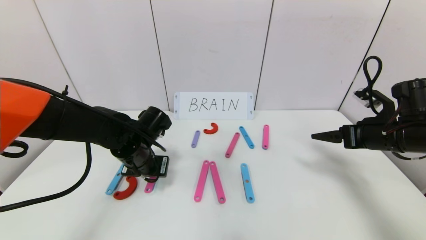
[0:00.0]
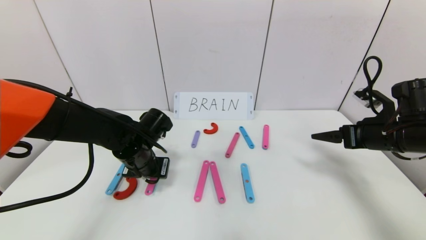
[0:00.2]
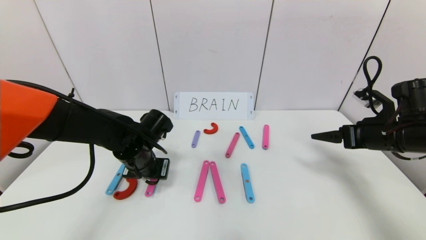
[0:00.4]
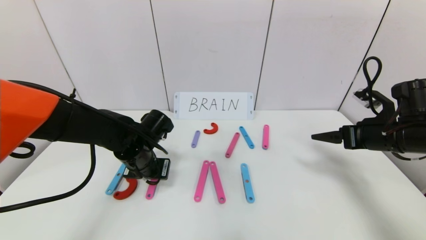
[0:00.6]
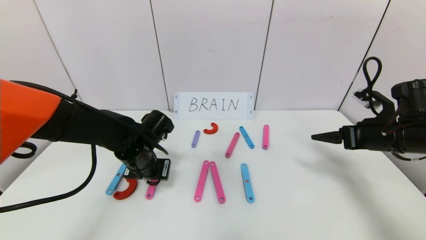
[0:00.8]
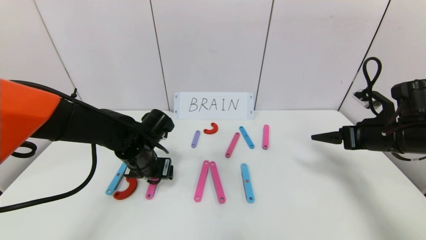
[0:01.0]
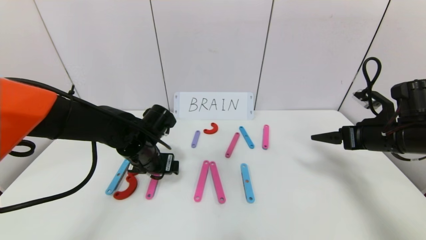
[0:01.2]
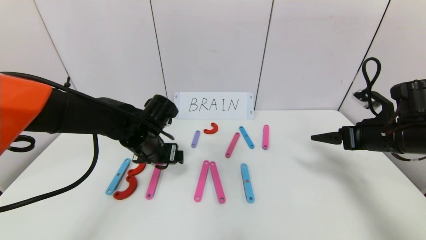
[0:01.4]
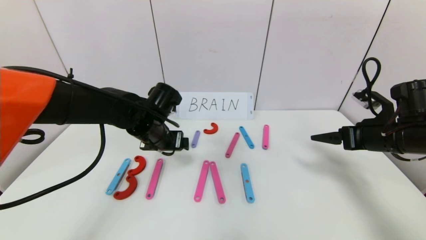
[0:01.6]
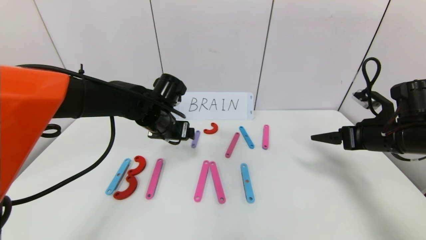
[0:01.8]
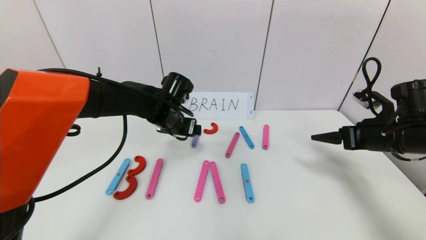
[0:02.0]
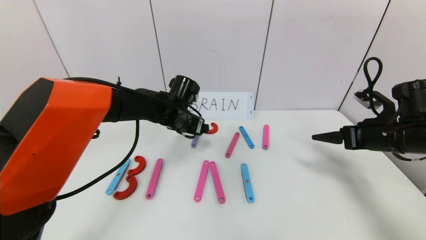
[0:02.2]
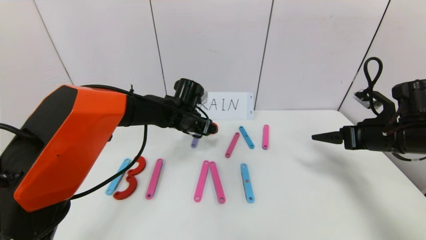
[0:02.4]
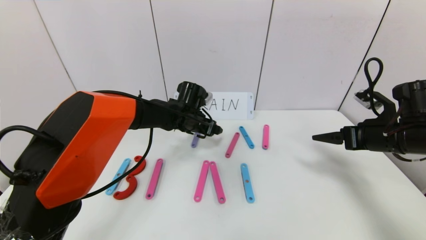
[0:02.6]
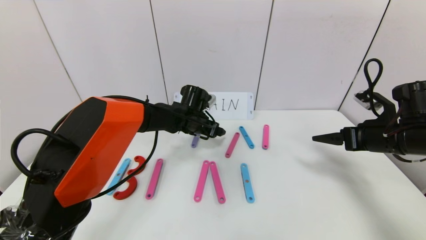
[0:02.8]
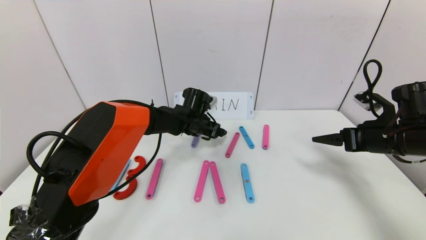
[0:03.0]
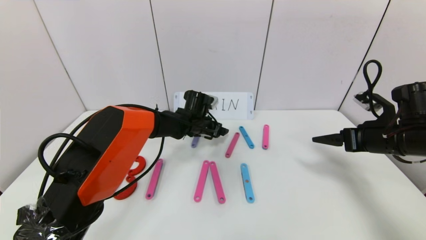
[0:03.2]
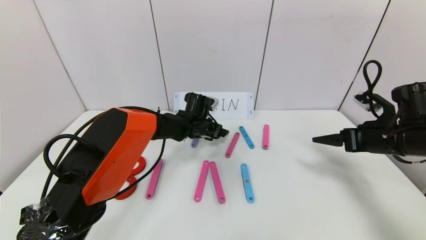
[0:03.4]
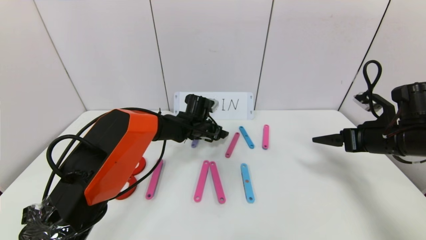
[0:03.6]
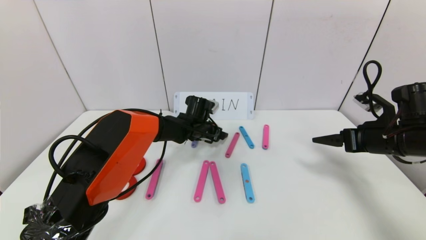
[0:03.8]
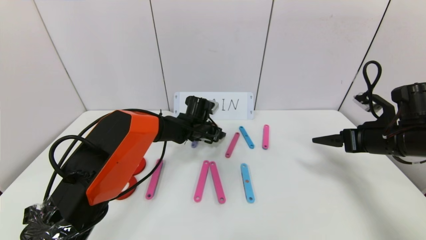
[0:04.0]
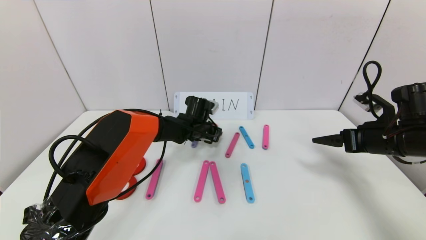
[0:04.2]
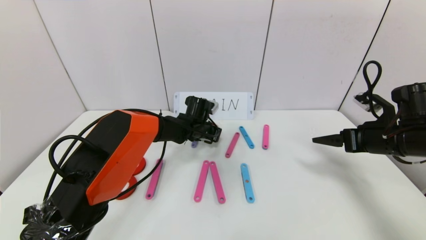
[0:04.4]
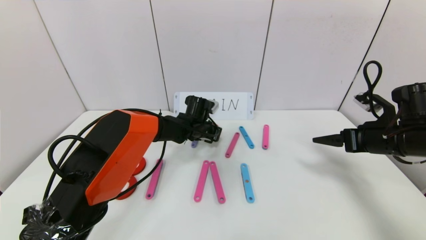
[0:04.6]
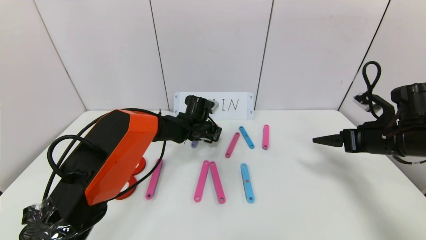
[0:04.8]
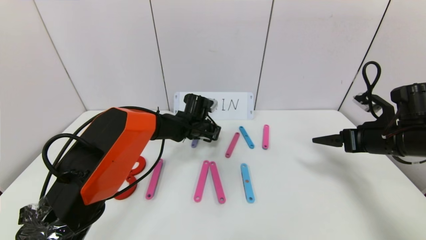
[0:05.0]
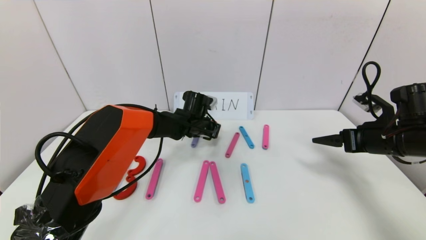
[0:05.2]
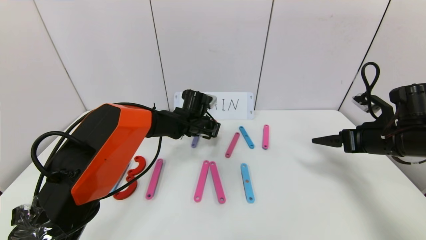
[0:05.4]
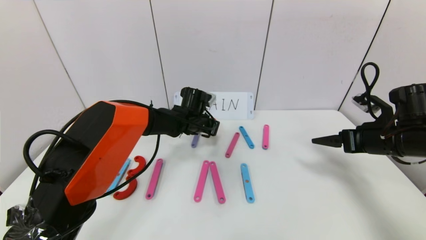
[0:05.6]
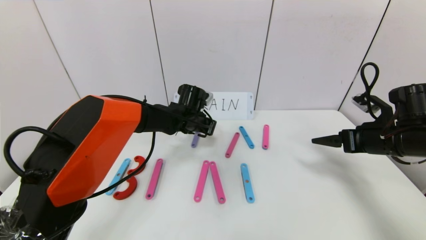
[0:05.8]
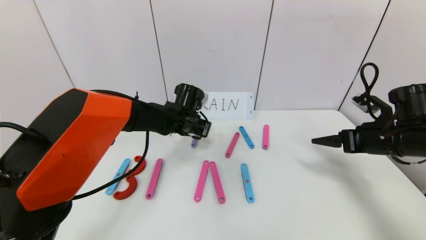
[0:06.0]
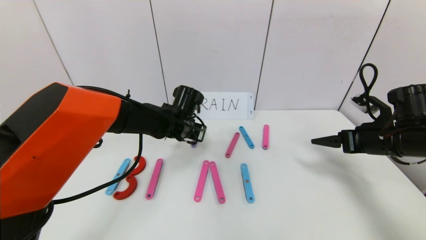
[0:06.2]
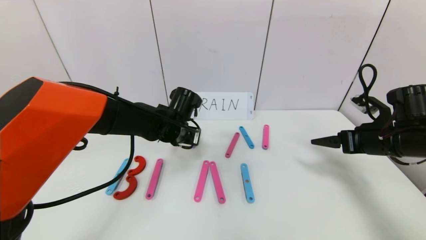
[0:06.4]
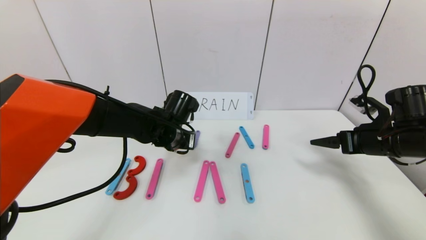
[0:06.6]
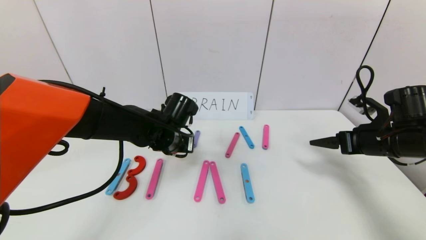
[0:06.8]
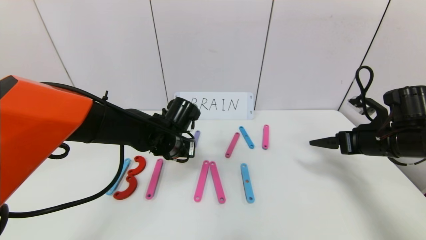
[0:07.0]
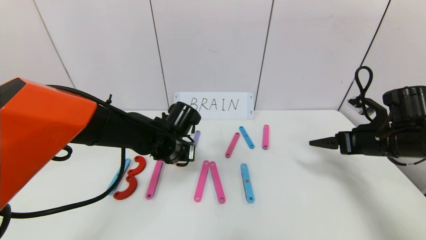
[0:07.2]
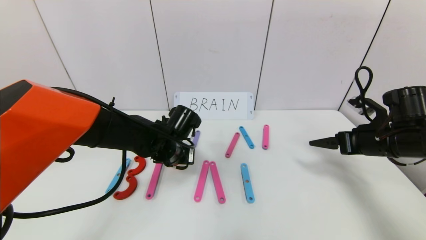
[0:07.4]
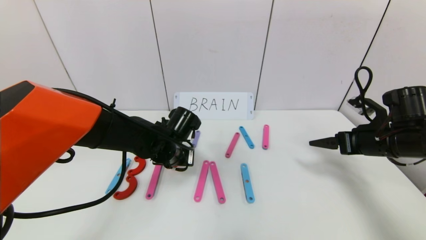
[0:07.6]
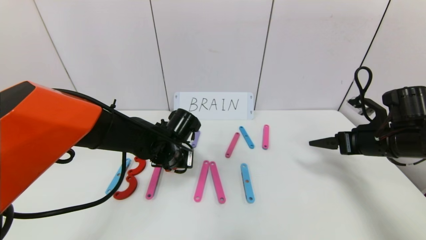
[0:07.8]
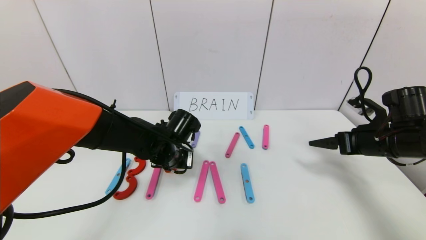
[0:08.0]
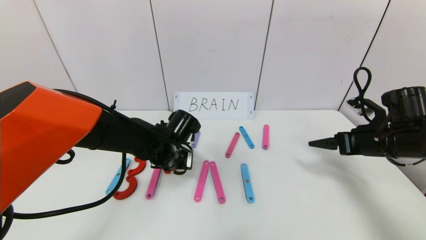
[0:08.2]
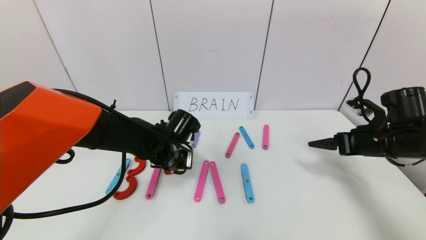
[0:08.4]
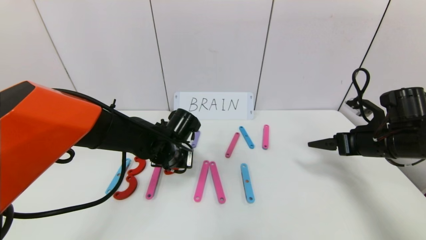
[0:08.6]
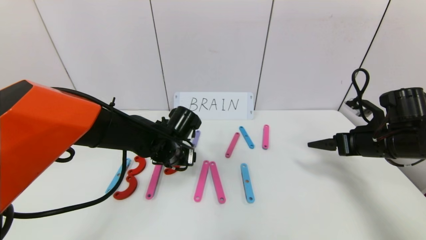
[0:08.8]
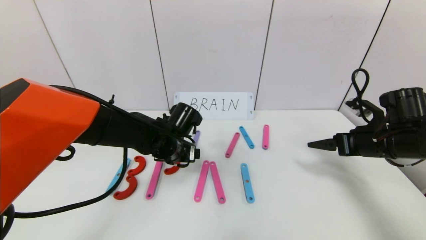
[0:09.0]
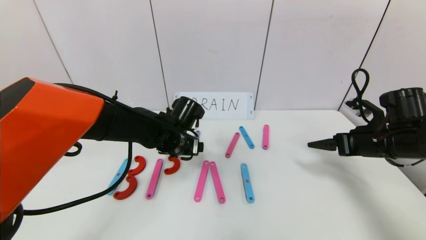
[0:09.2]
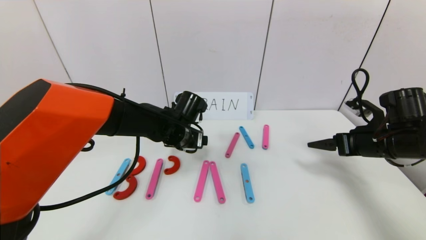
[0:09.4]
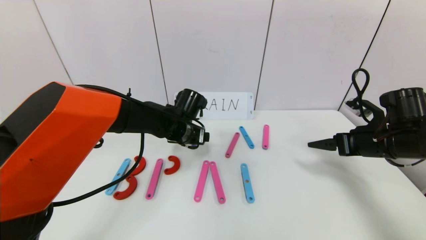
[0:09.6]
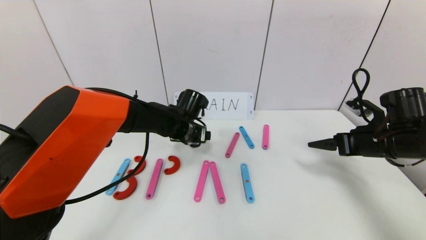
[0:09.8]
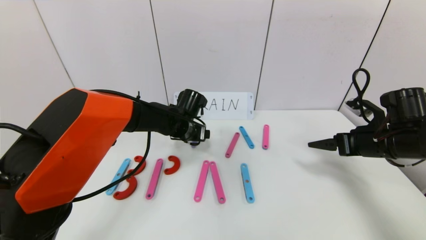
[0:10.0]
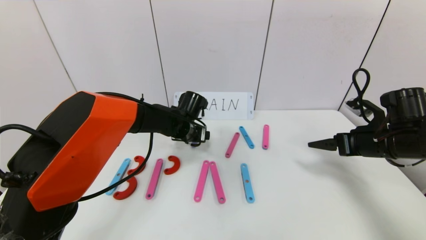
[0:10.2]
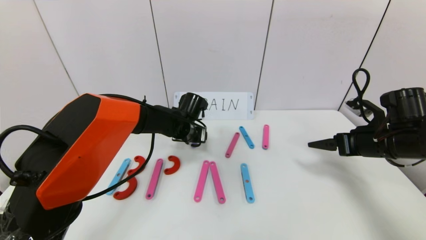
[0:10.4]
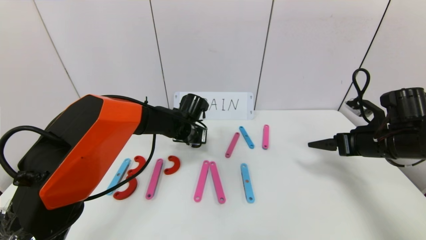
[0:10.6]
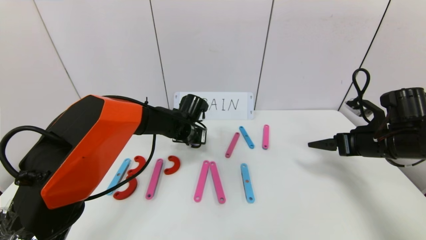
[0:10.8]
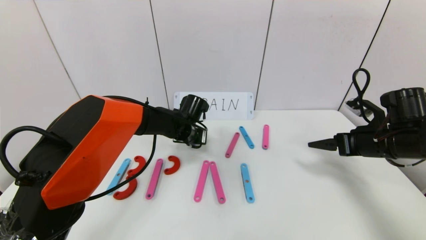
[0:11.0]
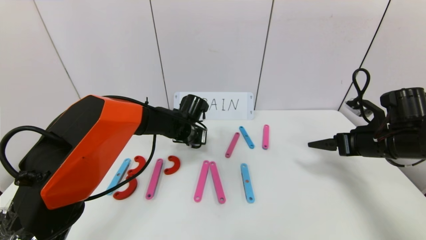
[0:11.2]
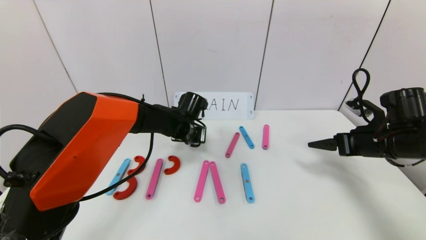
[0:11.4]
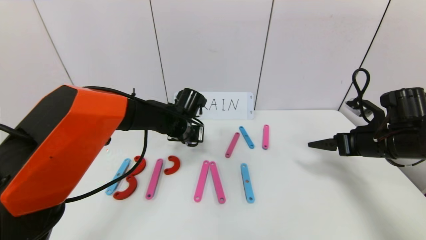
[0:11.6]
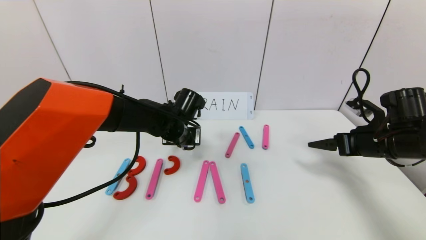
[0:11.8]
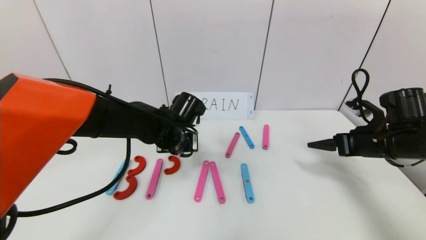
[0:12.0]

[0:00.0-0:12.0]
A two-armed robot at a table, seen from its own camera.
Task of the whole recording: rearrange the word baai as brain.
0:00.0 to 0:01.6: The left gripper moves approximately 5 cm, and opens its fingers.
0:01.6 to 0:03.0: The left gripper travels forward, to the right and downward by approximately 15 cm.
0:03.0 to 0:04.4: The left gripper closes.
0:04.4 to 0:06.0: The left gripper shifts some 5 cm upward.
0:06.0 to 0:07.6: The left gripper travels backward by roughly 10 cm.
0:07.6 to 0:09.0: The left gripper opens up.
0:09.0 to 0:10.4: The left gripper heads forward, covering roughly 10 cm.
0:10.4 to 0:12.0: The left gripper shifts some 10 cm backward, and closes.

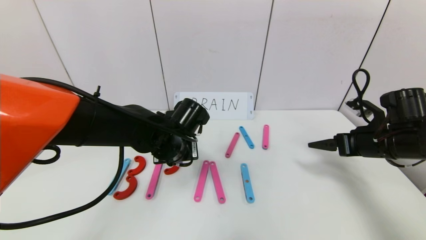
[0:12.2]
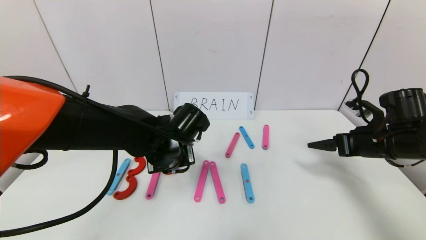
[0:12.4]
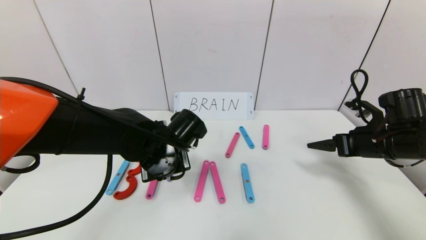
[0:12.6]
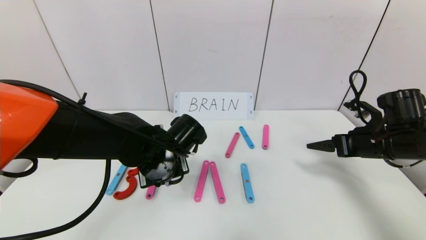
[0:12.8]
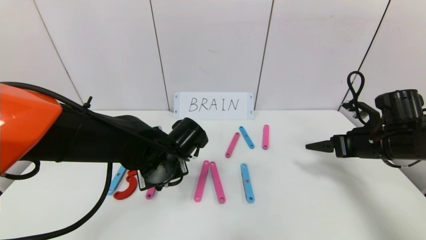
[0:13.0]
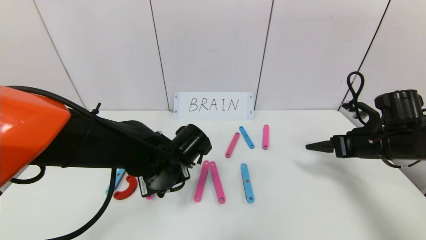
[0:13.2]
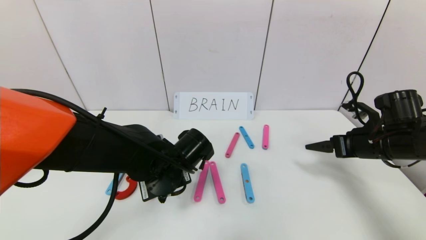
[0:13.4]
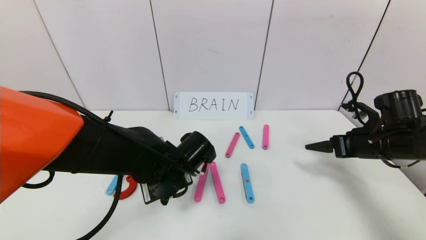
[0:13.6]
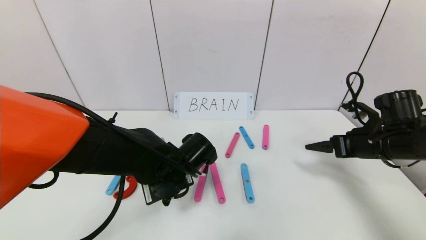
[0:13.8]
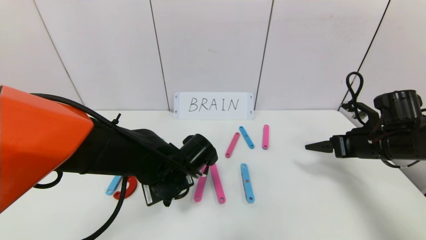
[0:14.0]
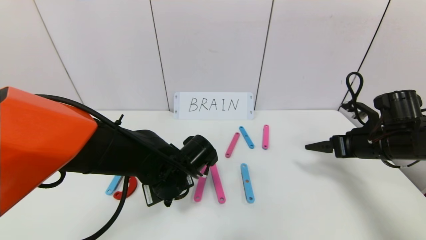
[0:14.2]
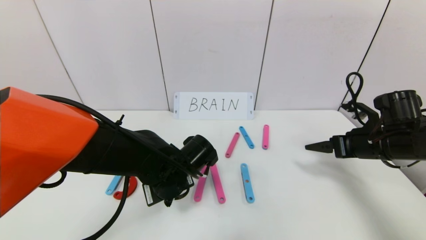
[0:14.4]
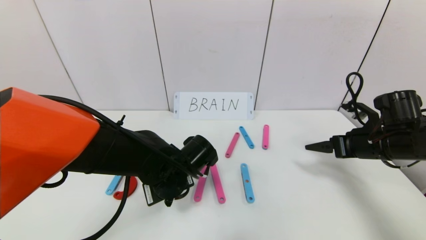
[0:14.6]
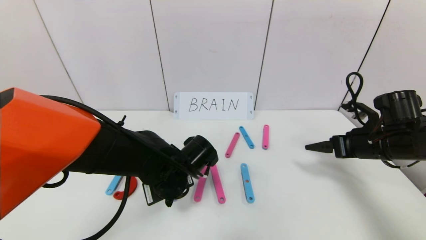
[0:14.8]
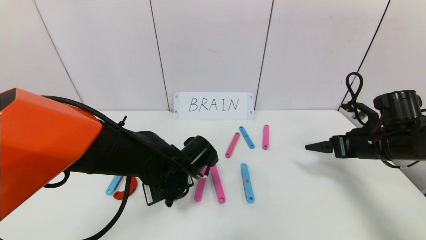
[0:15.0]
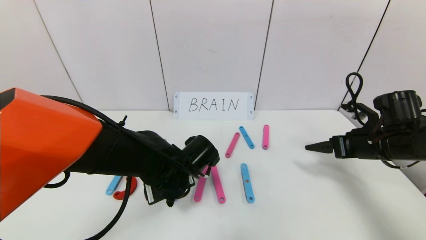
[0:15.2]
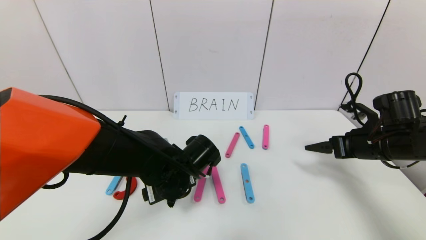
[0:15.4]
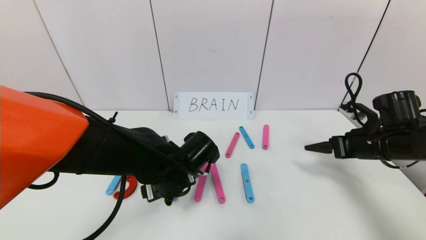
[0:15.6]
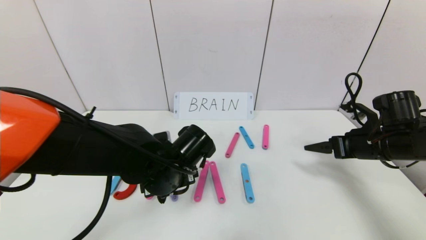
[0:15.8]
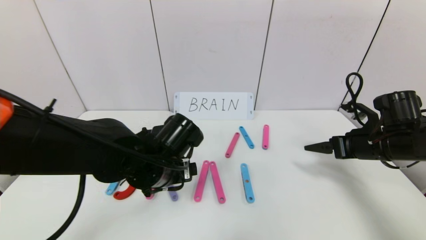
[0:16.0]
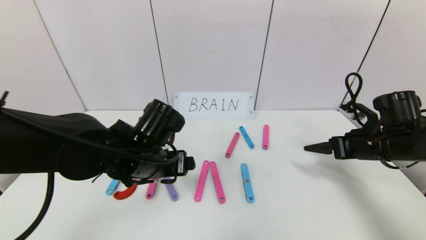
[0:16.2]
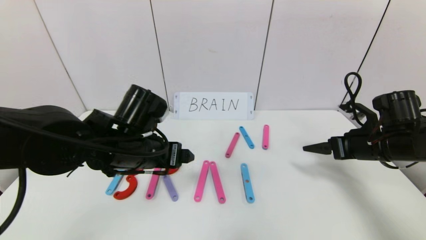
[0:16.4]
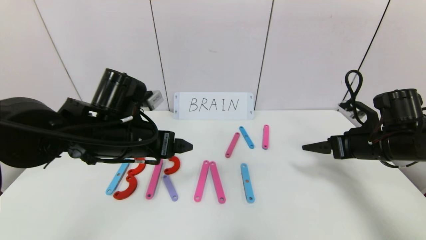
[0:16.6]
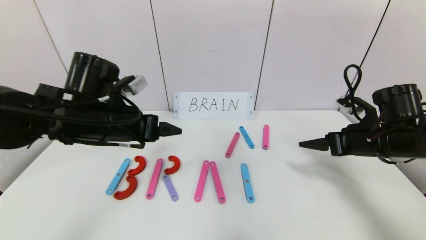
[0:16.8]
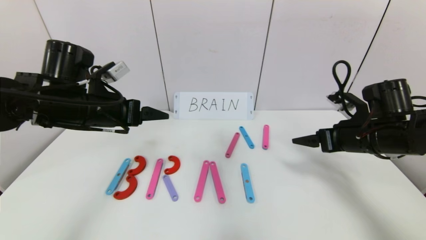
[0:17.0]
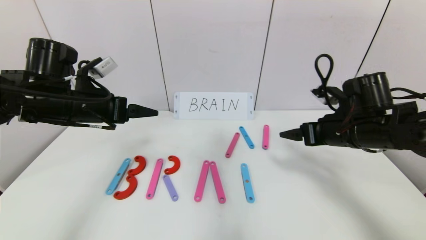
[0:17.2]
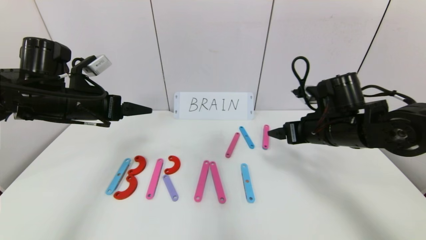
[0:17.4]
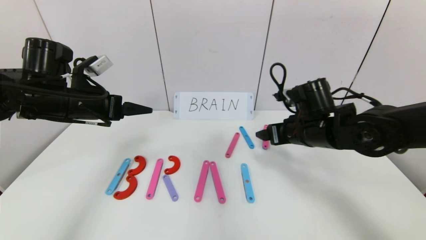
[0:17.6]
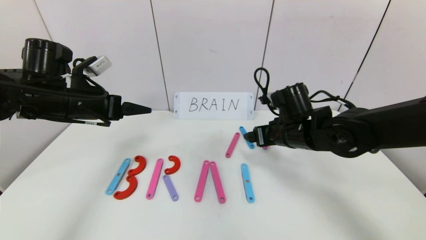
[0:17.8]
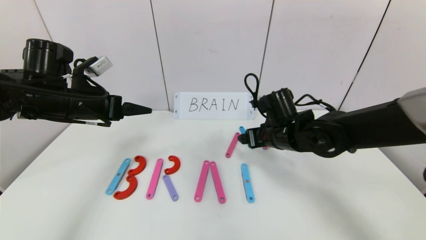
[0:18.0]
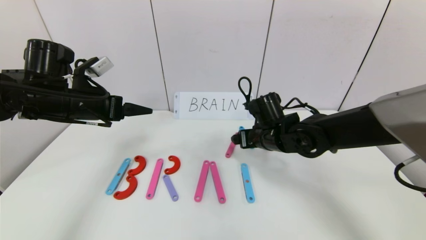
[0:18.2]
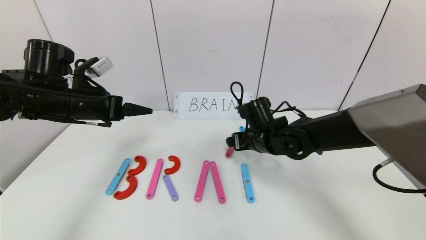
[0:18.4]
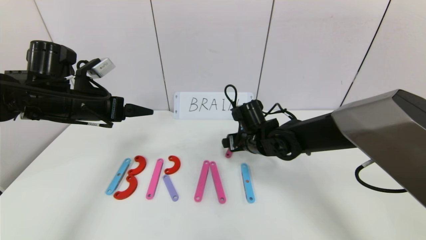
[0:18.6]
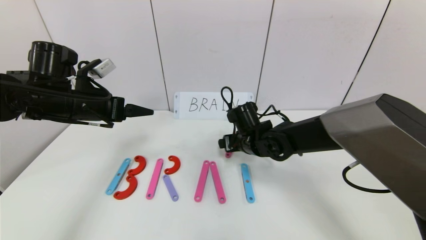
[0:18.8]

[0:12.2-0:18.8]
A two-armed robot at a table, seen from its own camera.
Task of the whole recording: rearrange the word baai as brain.
Step, 0:12.2 to 0:15.0: Place the character R between first character B and third character A.
0:12.2 to 0:13.8: The left gripper changes place by roughly 5 cm.
0:13.8 to 0:15.4: The left gripper opens.
0:15.4 to 0:17.2: The right gripper is displaced to the left by some 10 cm, while the left gripper shifts about 25 cm to the left and upward.
0:17.2 to 0:18.8: The right gripper heads to the left, downward and forward, covering about 20 cm.
